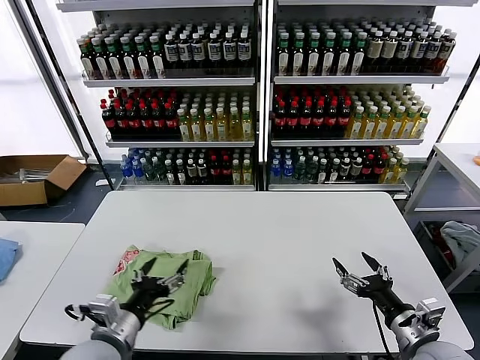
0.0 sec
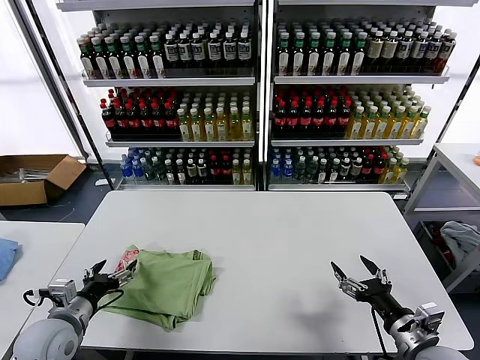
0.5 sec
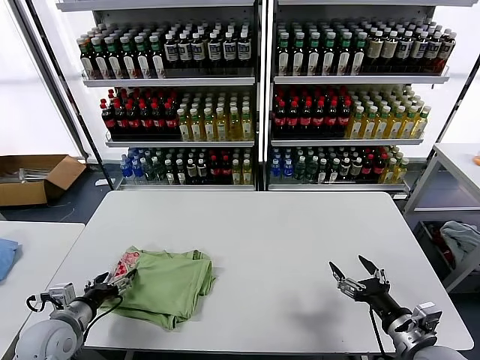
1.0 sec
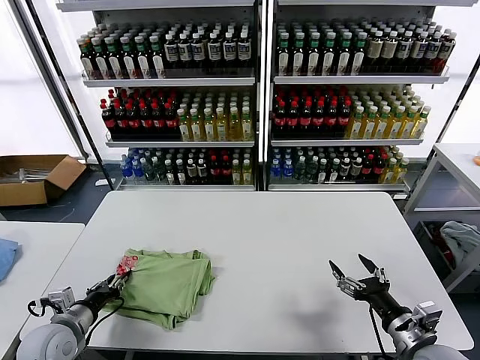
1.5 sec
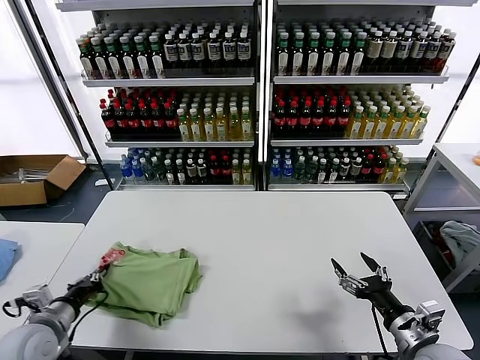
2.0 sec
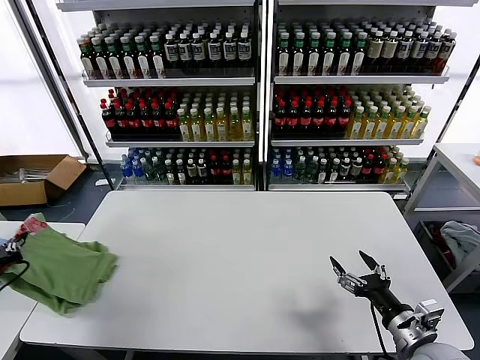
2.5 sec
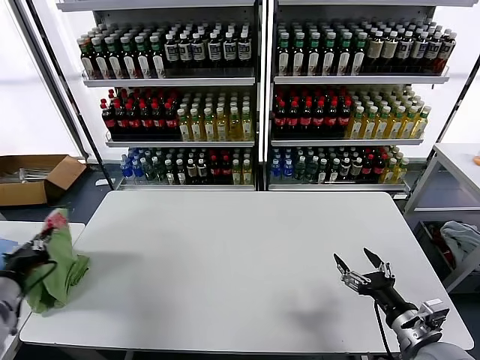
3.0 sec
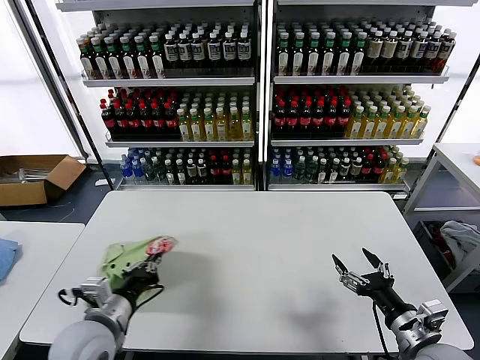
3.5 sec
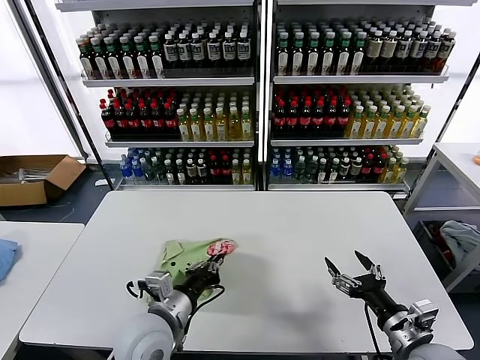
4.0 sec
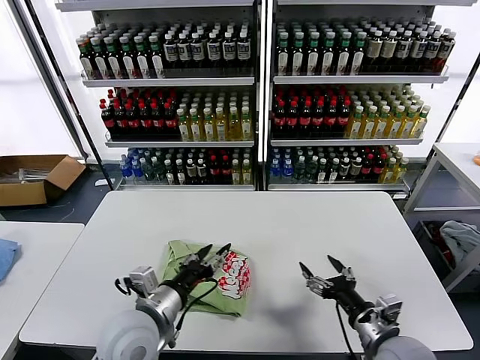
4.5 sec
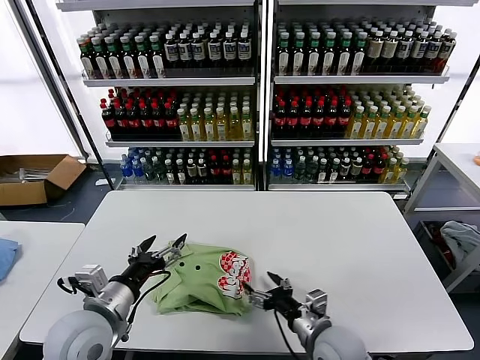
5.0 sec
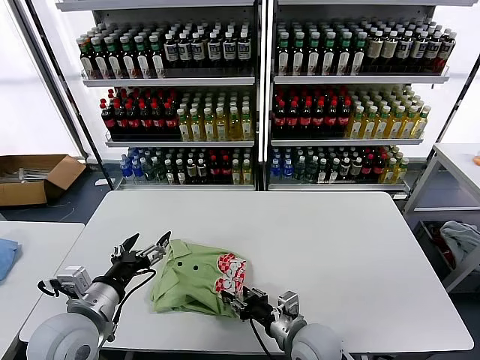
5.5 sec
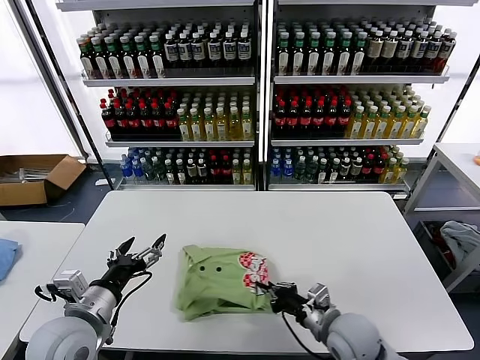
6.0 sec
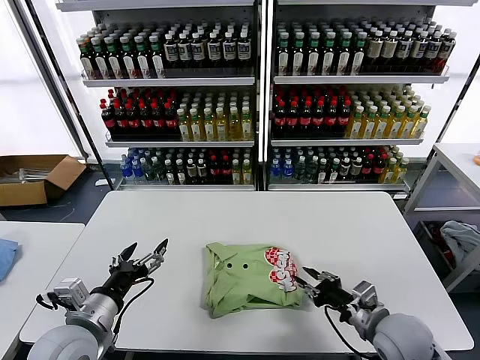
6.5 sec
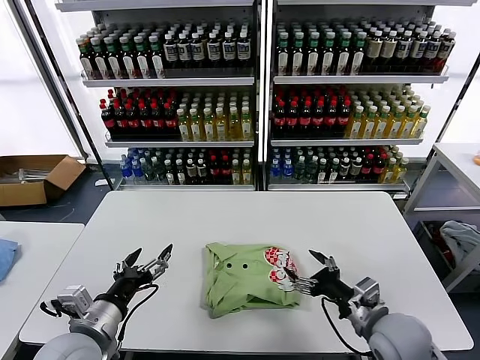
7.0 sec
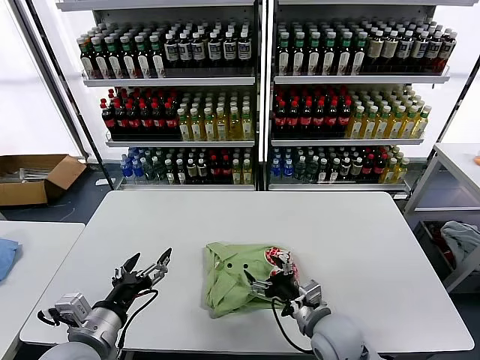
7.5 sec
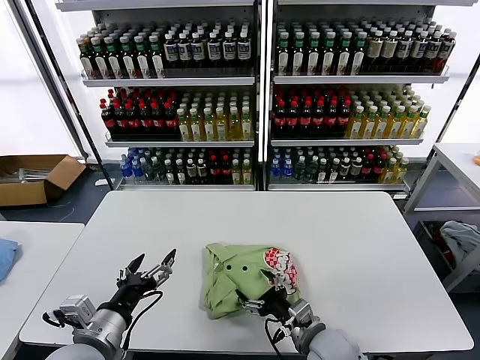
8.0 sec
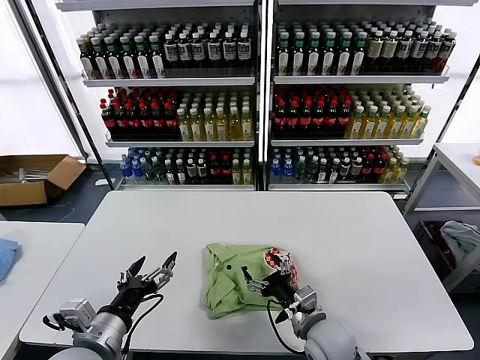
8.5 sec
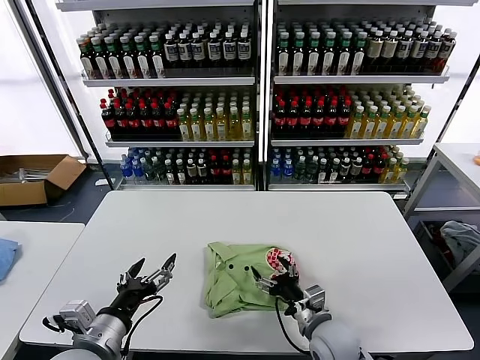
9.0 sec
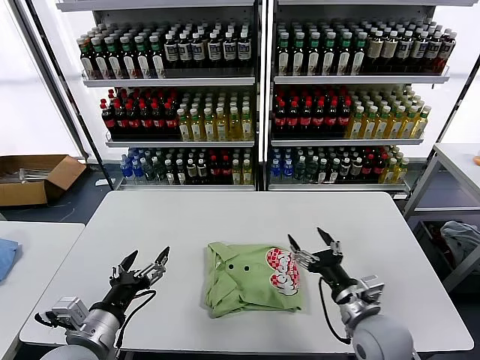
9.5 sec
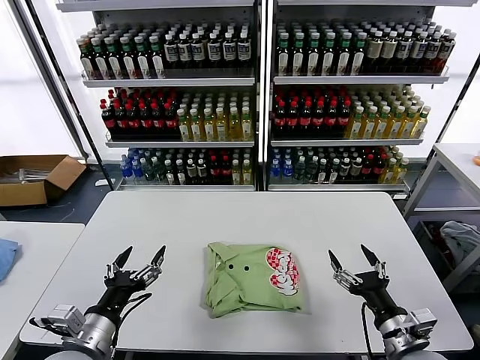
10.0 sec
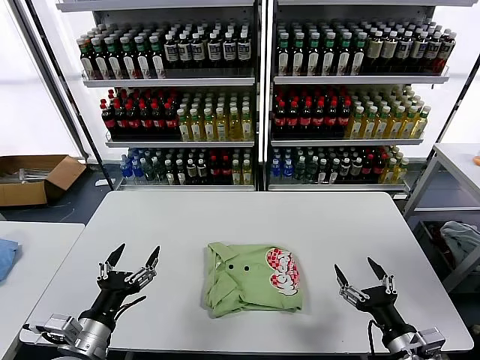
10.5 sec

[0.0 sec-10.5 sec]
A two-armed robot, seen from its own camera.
Task of the whole recording: fold and organize the clothes.
Step, 0.0 sec to 4.0 sec: Flip the folded clothes over with left gripper.
Step, 4.5 sec to 9.0 sec: Drag the clothes to the center of the table.
0.0 sec to 2.0 sec: The left gripper goes roughly 15 cm to the left, and closes up.
2.0 sec to 4.0 sec: The left gripper shifts about 25 cm to the right.
4.0 sec to 6.5 sec: The right gripper heads forward, covering roughly 5 cm, moves some 20 cm to the left and comes back, and closes its fingers, while the left gripper travels to the left by approximately 10 cm, and opens.
6.5 sec to 8.5 sec: The right gripper goes approximately 10 cm to the left, and opens up.
8.5 sec to 10.5 sec: The right gripper is displaced to the right and backward by about 20 cm.
